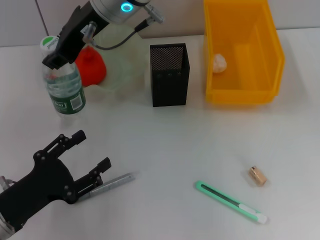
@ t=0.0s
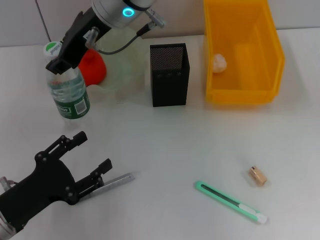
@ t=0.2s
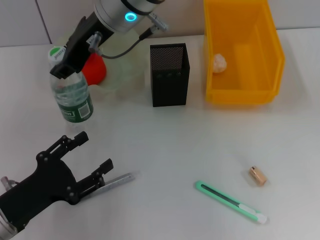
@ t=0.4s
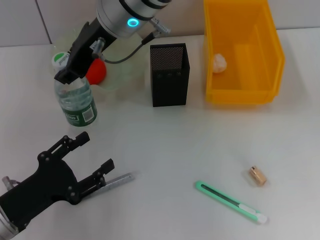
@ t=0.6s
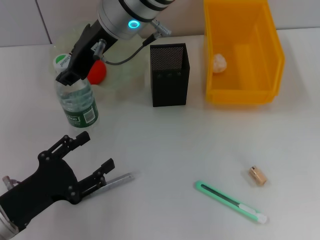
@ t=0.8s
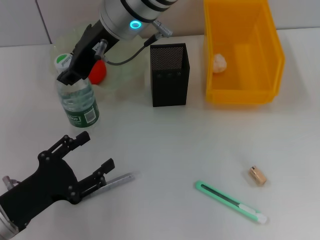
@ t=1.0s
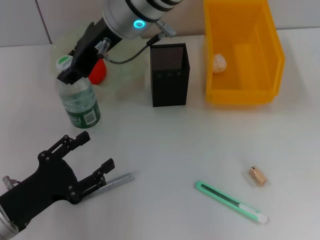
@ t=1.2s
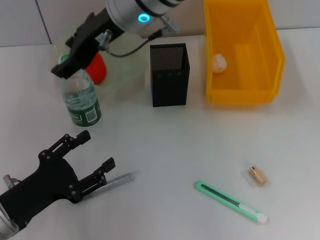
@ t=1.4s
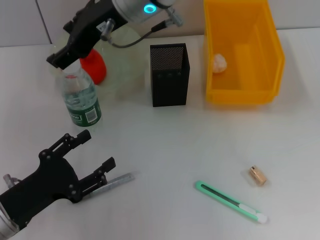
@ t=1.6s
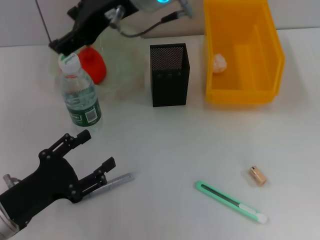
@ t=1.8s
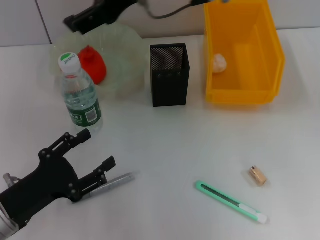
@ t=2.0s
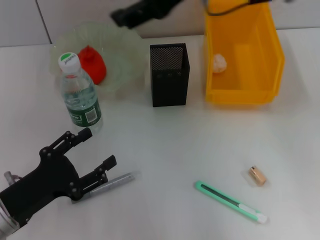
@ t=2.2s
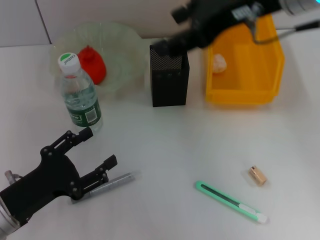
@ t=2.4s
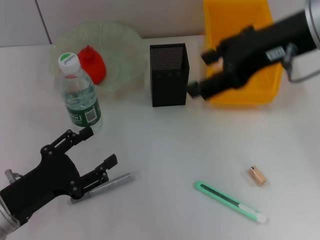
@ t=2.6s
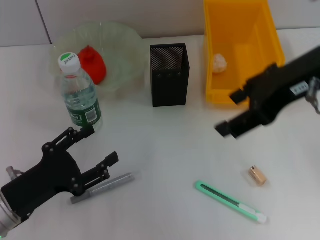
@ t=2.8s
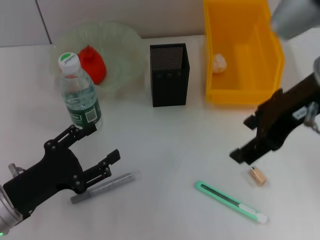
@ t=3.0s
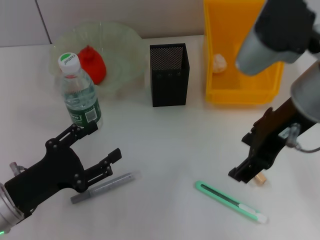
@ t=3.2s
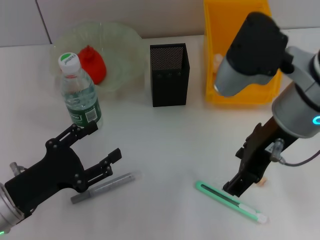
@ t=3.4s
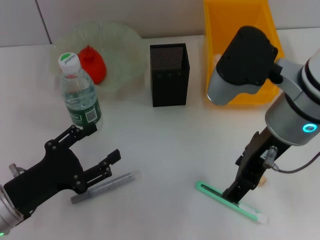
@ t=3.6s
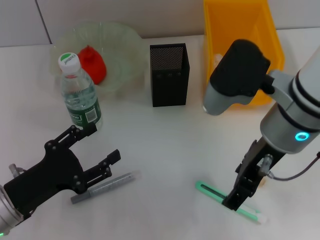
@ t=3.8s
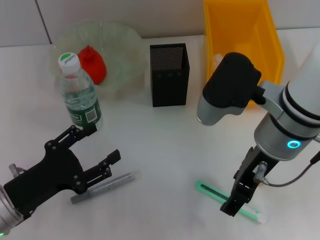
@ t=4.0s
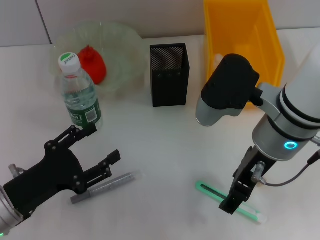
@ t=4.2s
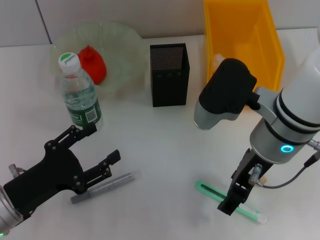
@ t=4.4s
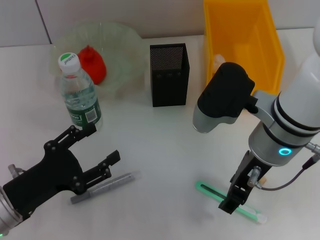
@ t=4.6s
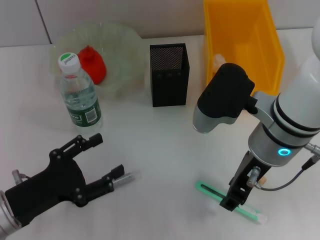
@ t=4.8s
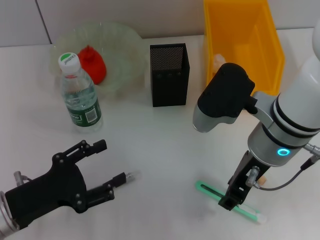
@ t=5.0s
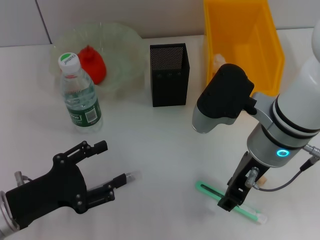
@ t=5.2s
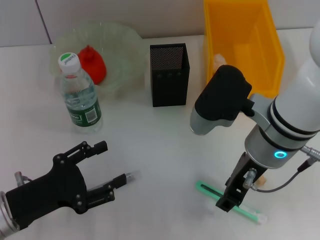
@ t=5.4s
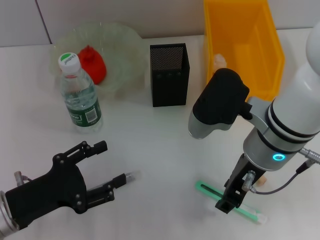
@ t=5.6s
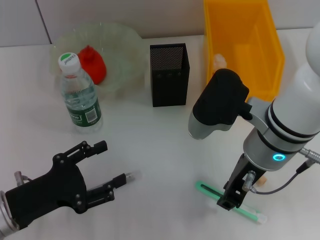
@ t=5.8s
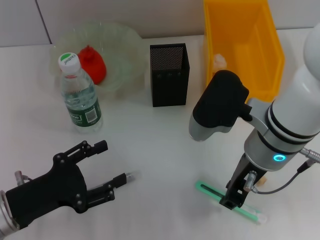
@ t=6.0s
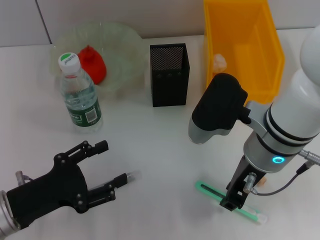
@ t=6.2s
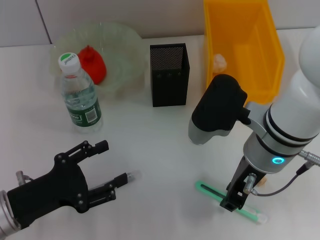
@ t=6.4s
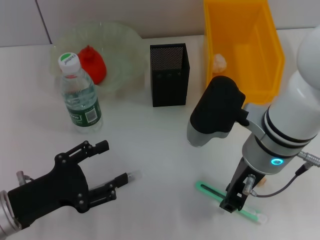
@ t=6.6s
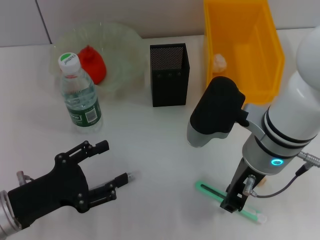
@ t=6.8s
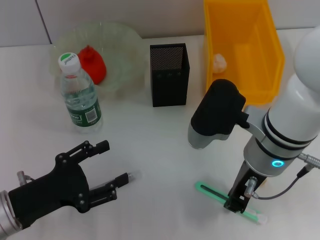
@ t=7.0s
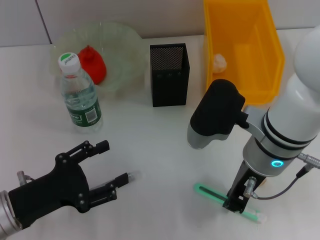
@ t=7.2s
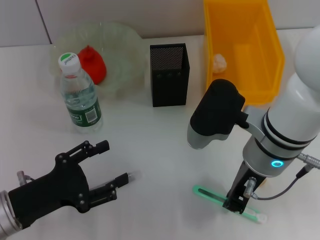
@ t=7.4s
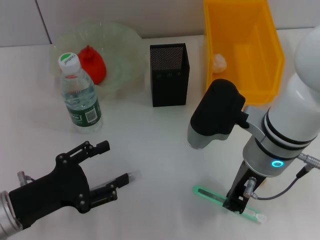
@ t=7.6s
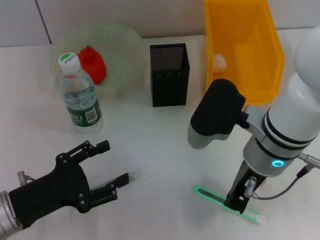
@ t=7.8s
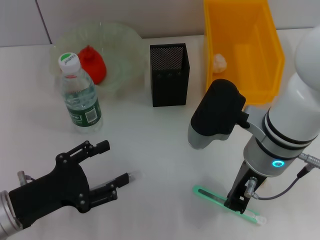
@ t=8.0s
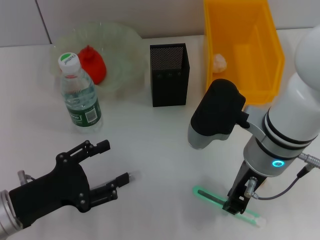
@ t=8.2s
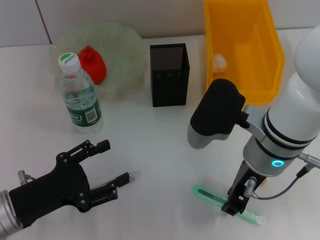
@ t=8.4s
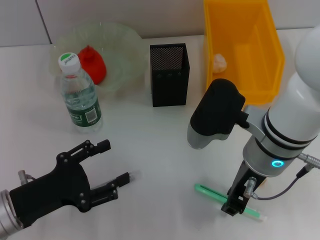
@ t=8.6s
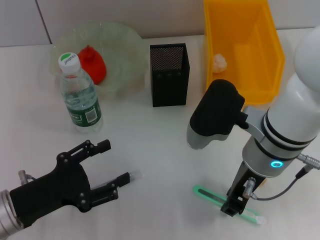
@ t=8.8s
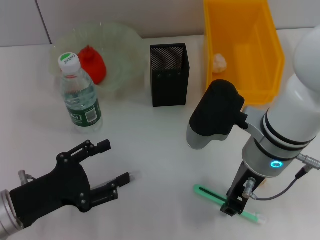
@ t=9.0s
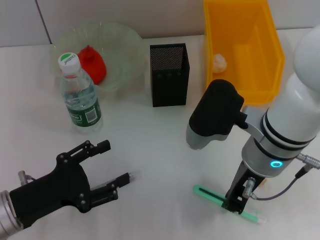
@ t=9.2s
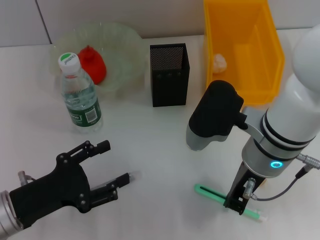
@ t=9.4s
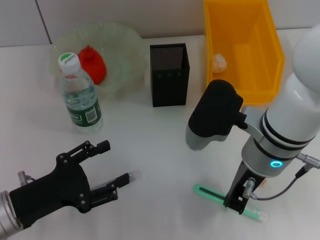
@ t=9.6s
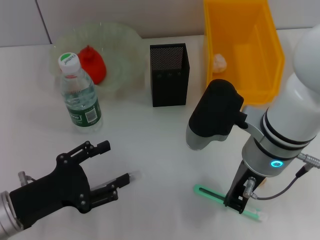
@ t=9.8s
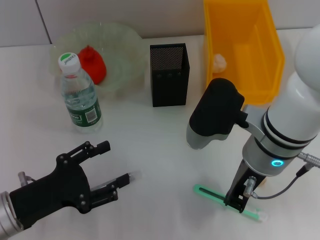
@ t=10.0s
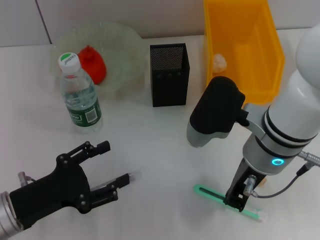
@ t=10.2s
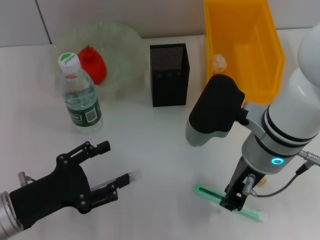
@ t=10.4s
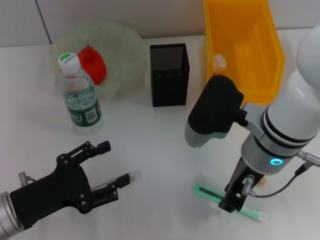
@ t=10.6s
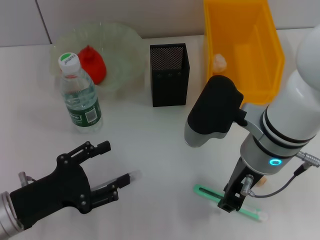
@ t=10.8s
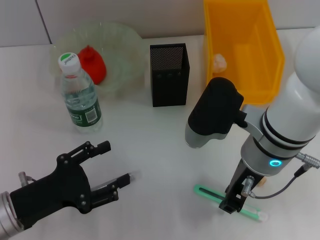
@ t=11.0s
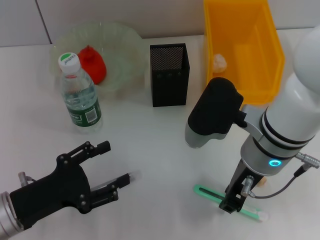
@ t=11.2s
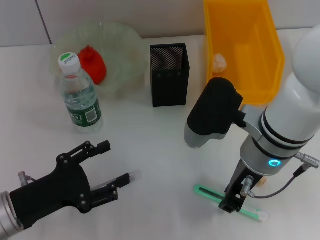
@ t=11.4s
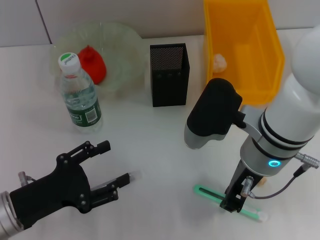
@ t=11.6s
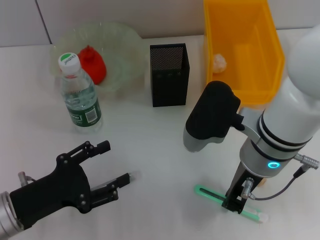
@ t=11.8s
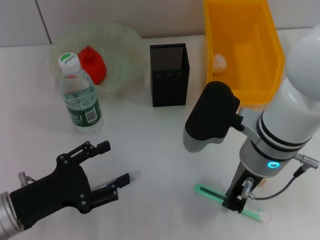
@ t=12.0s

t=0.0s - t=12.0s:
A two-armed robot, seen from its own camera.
Step, t=1.6s - t=11.8s: Grab the blue utility knife with the right hand.
t=0.0s - t=1.6s: The right gripper opens.
t=1.6s - t=3.0s: The right gripper goes approximately 20 cm to the right and backward.
t=3.0s - t=4.4s: The right gripper goes some 10 cm downward.
t=4.4s - t=6.0s: The right gripper closes its fingers.
t=6.0s - t=7.6s: The right gripper closes its fingers.
t=7.6s - t=12.0s: The two grippers keep their place.

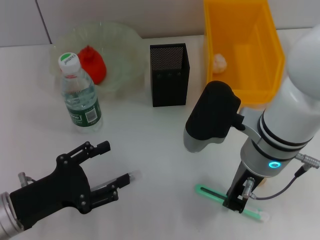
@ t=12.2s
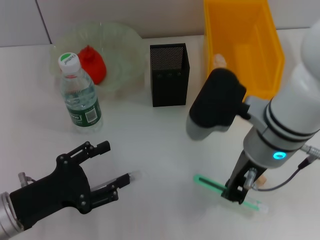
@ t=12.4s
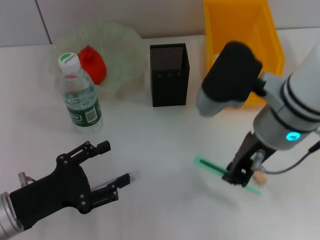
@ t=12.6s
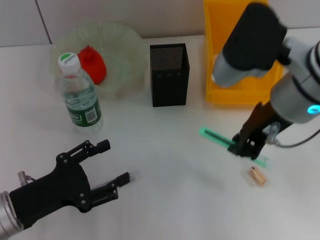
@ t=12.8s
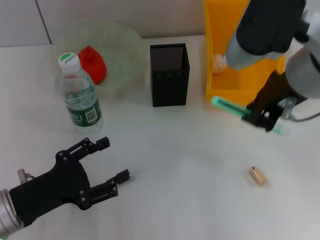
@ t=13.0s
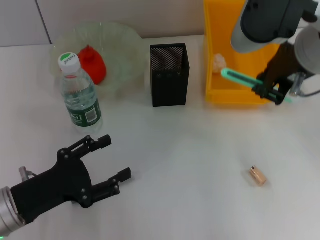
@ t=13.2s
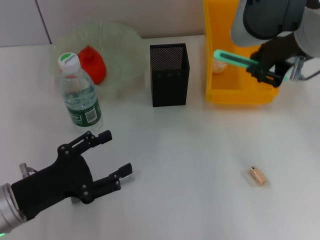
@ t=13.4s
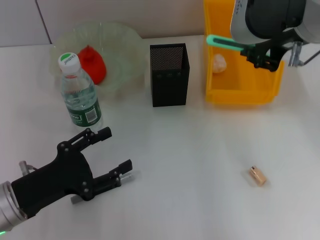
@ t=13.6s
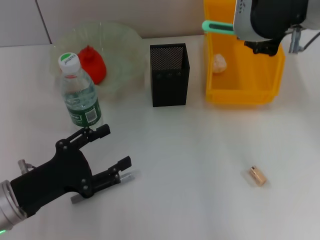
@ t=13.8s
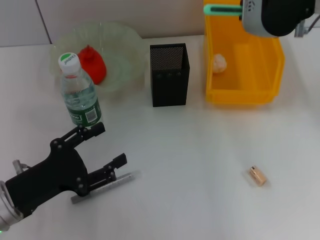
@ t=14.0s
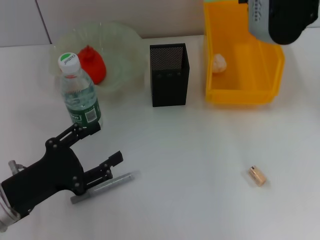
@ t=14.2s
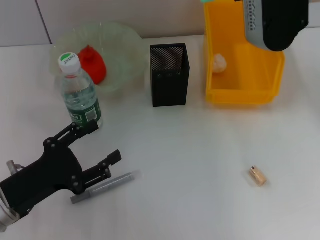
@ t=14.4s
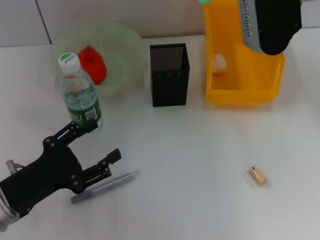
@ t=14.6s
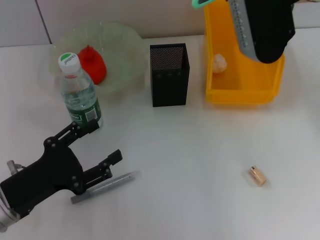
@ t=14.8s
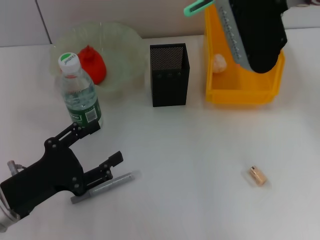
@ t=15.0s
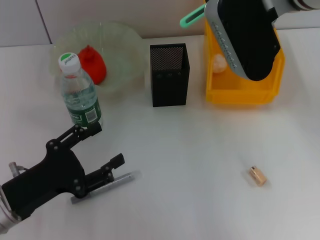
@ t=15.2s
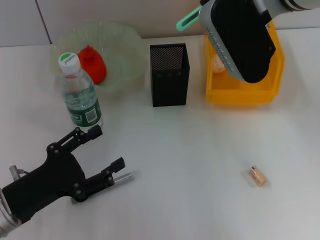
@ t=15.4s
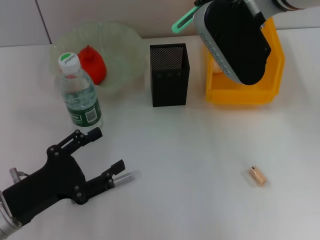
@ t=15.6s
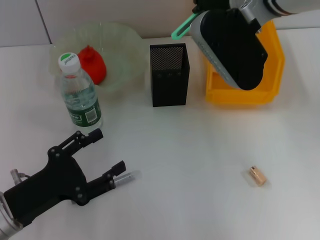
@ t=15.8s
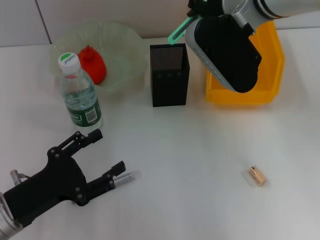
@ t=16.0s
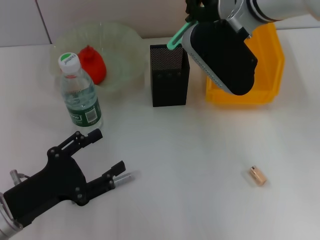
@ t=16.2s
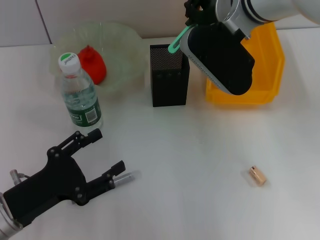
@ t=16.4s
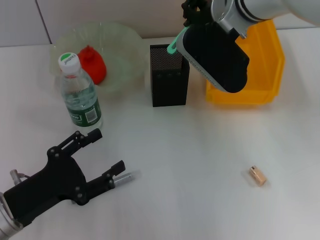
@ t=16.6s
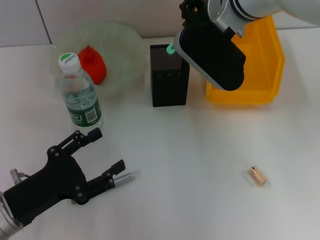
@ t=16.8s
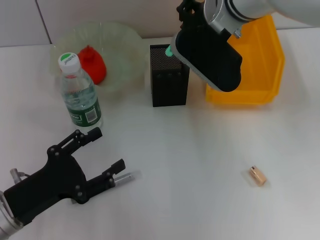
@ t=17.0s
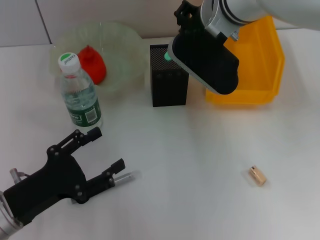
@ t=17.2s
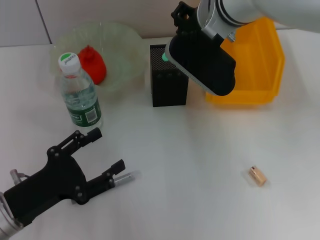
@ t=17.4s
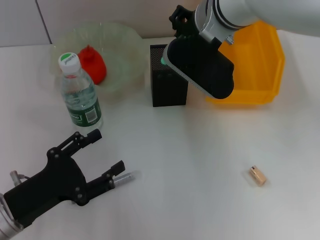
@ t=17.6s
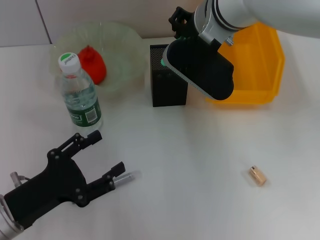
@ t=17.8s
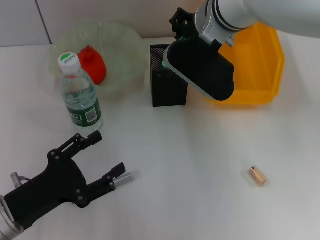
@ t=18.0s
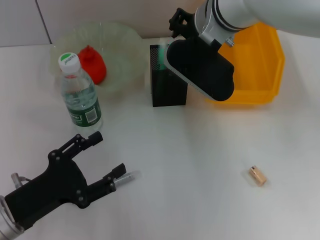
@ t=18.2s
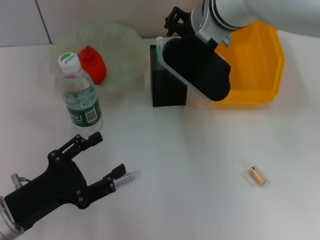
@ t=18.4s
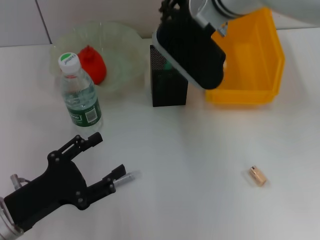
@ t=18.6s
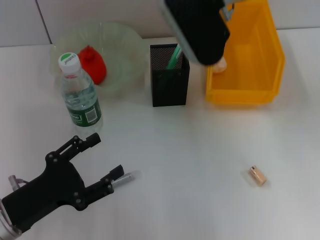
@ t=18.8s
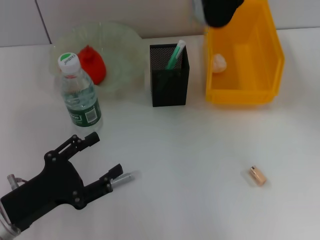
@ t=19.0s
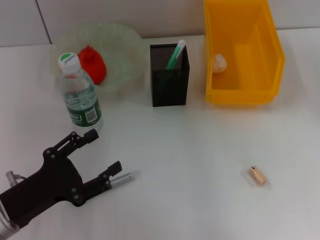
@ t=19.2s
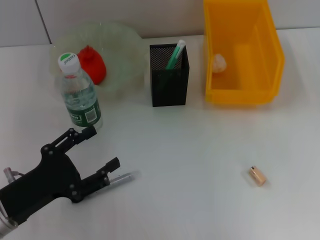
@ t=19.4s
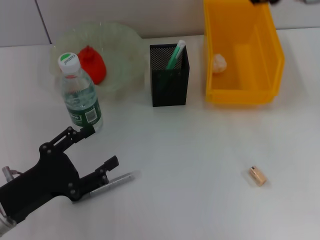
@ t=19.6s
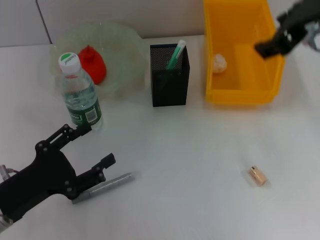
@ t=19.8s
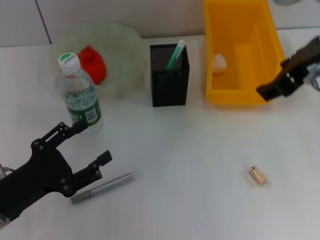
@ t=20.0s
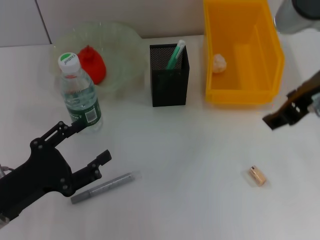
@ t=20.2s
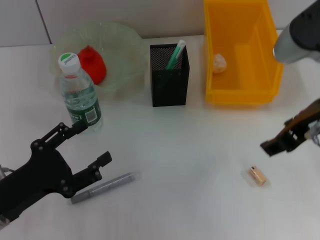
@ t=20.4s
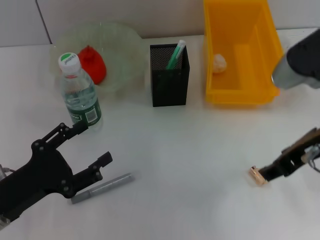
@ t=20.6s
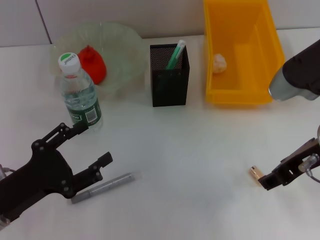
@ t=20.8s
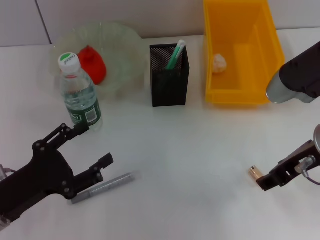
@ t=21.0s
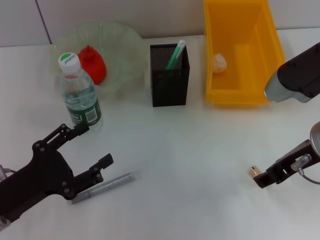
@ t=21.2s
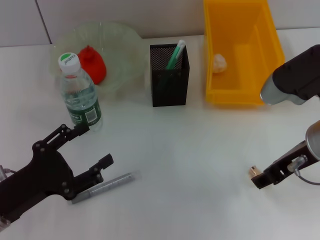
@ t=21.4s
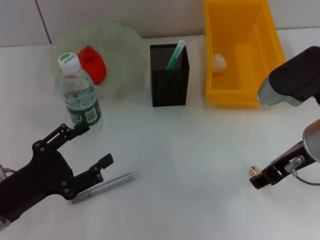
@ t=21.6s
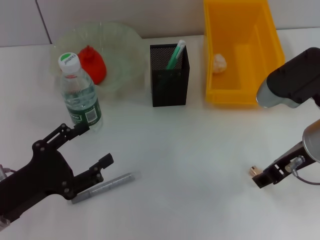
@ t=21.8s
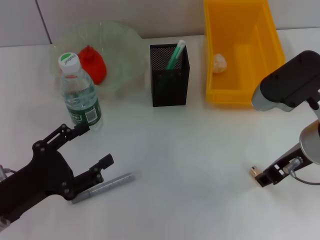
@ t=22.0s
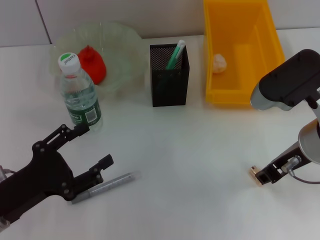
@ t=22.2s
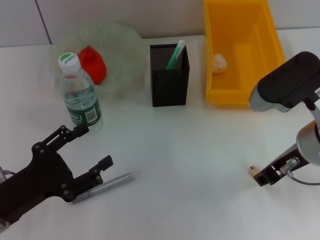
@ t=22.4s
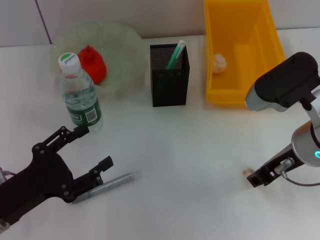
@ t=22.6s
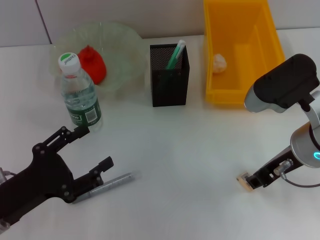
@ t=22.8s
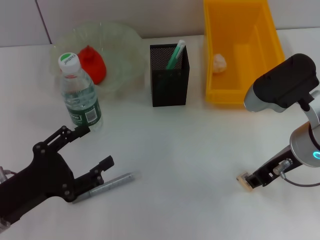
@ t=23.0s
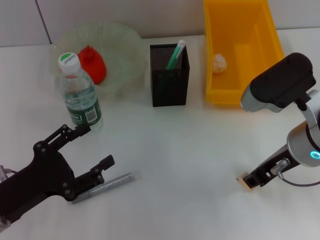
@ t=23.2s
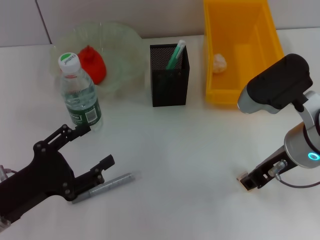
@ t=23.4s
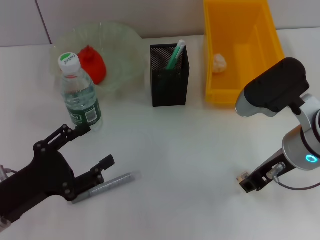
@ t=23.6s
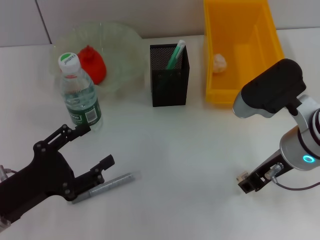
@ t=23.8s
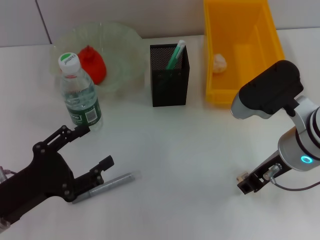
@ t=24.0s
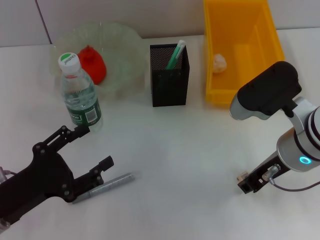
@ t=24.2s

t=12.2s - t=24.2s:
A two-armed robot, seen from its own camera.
Step, t=12.2s - t=18.8s: Place the blue utility knife into the pen holder with the right hand.
t=12.2s - t=13.8s: The right gripper goes approximately 15 cm upward.
t=13.8s - t=15.2s: The right gripper heads forward, covering about 5 cm.
t=15.2s - t=16.6s: The right gripper moves some 5 cm.
t=16.6s - t=18.2s: The grippers move only a little.
t=18.2s - t=19.8s: The right gripper shifts some 15 cm to the right, backward and upward, and opens.
t=19.8s - t=21.2s: The right gripper is displaced downward by some 15 cm.
t=21.2s - t=24.2s: The grippers stay close to where they were, moving slightly.
